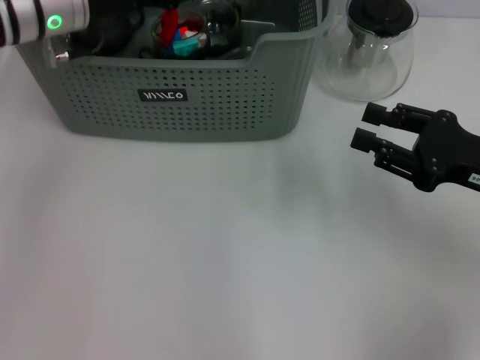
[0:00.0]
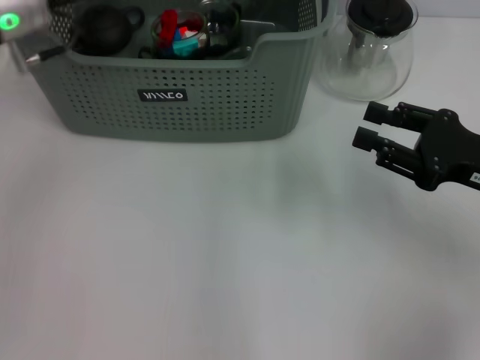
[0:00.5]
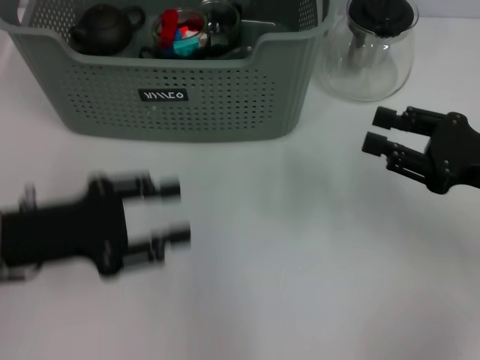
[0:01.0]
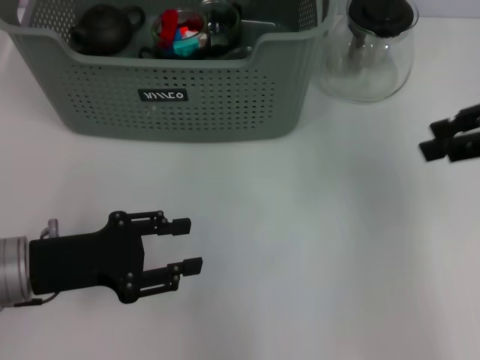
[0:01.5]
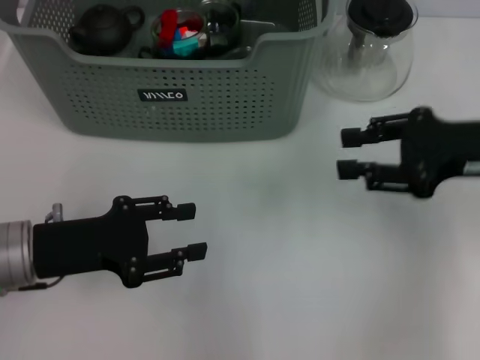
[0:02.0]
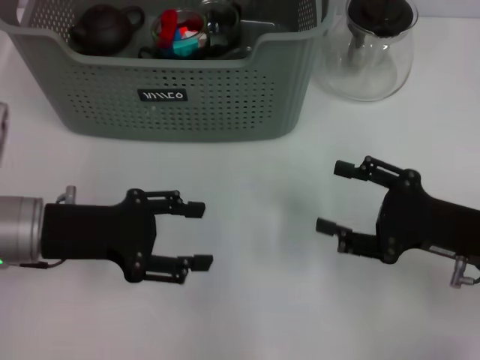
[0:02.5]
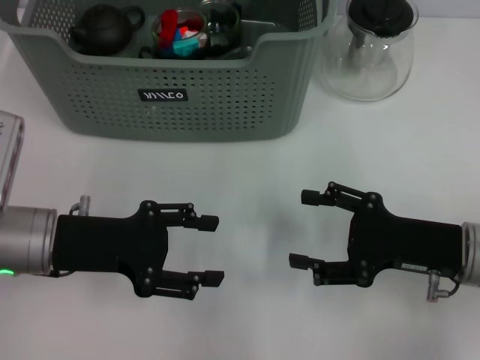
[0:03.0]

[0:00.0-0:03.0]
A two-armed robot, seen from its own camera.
Task of the whole recording: pick up the teacup on the table and place it into the storage bin, pick up the block on the table and place it into the storage bin.
0:00.0 to 0:01.5: The right gripper goes some 15 cm upward. The left gripper moves backward and downward, some 25 cm.
0:01.5 to 0:03.0: The right gripper shifts some 20 cm downward and backward, and opens its fingers.

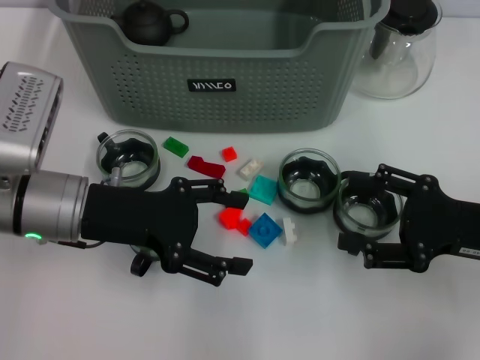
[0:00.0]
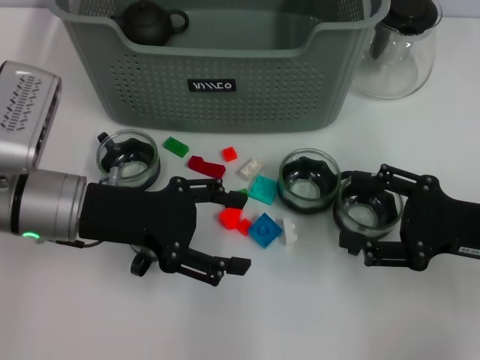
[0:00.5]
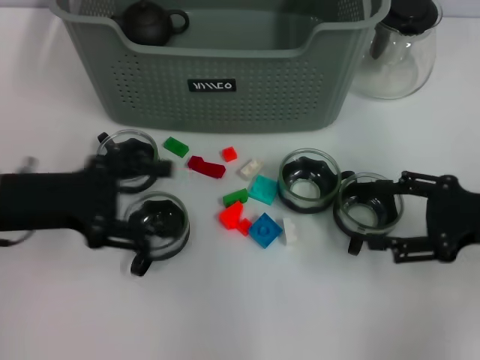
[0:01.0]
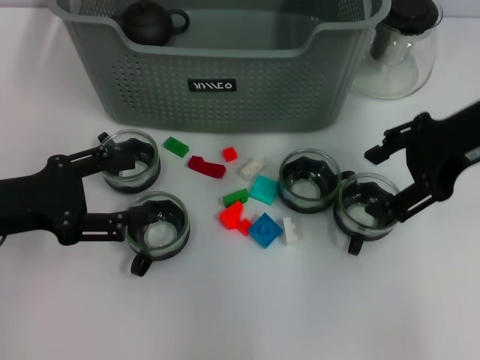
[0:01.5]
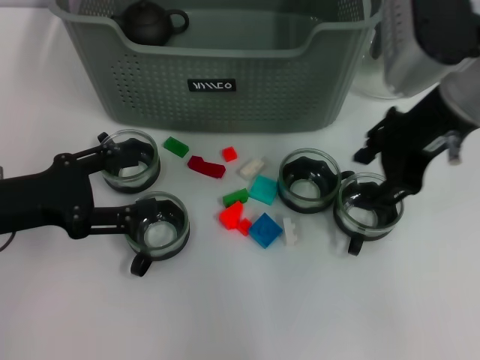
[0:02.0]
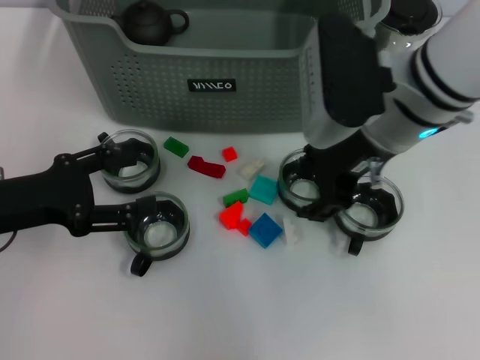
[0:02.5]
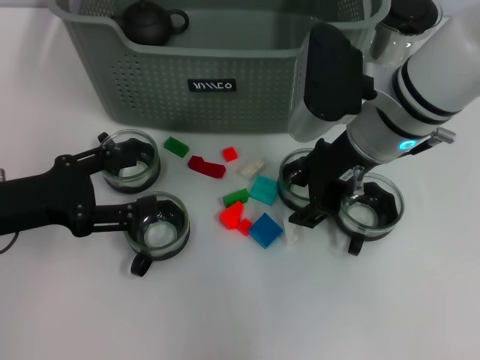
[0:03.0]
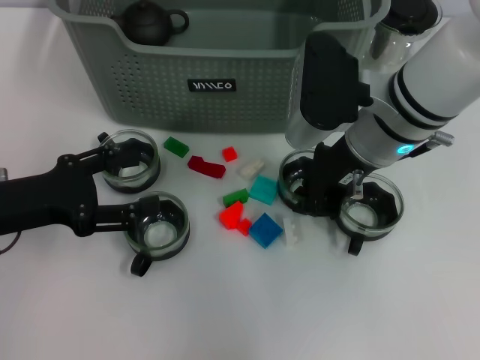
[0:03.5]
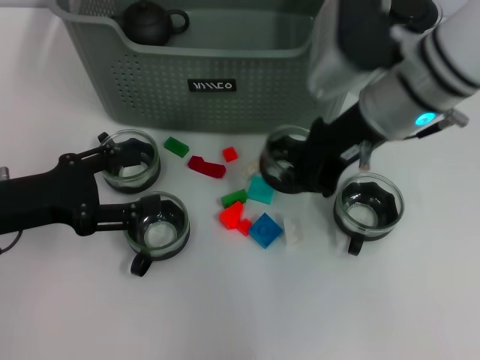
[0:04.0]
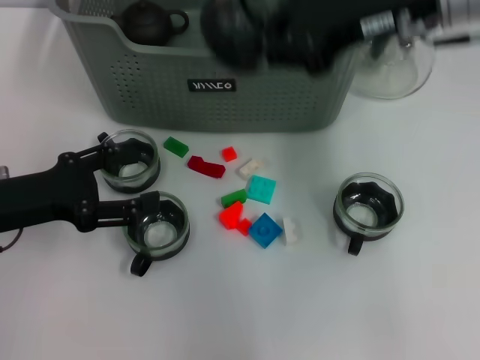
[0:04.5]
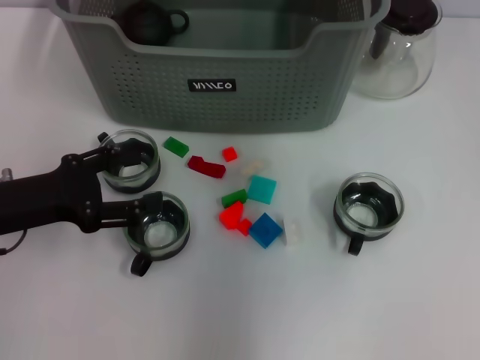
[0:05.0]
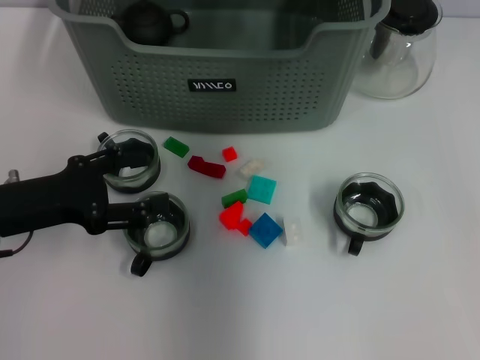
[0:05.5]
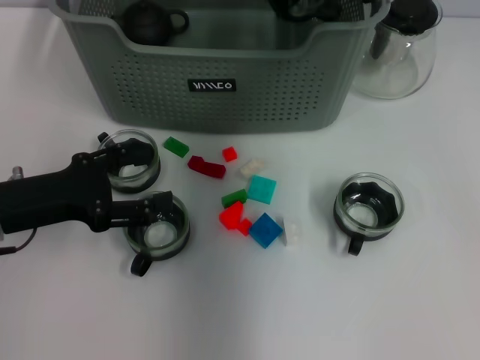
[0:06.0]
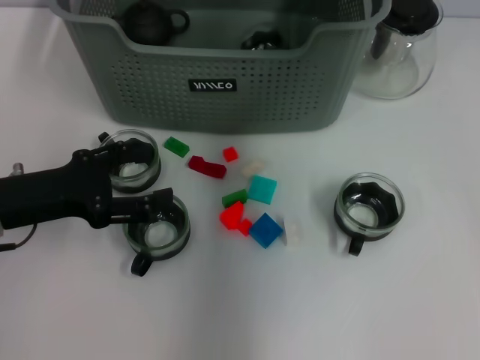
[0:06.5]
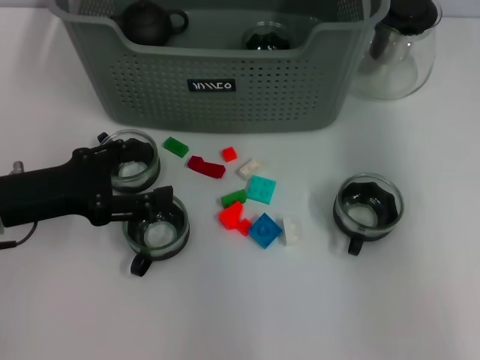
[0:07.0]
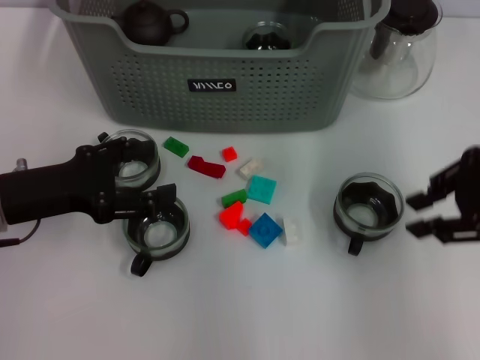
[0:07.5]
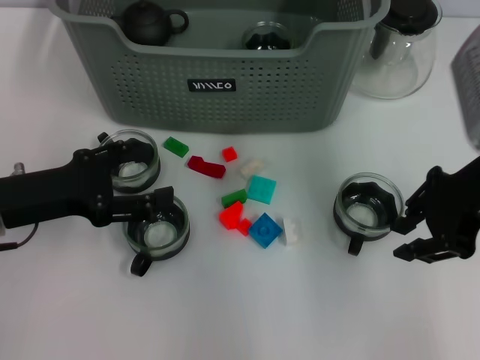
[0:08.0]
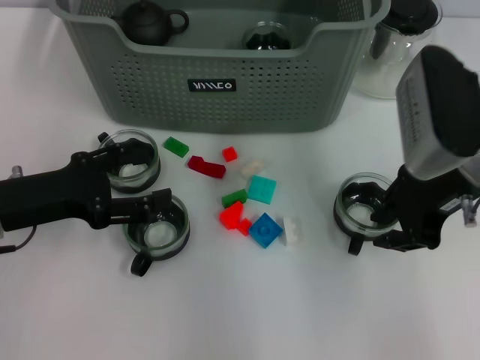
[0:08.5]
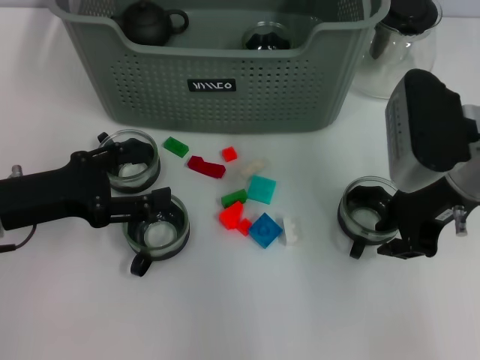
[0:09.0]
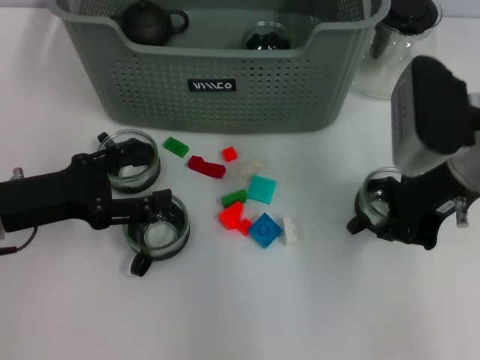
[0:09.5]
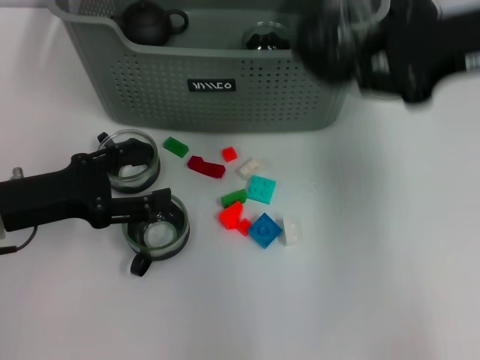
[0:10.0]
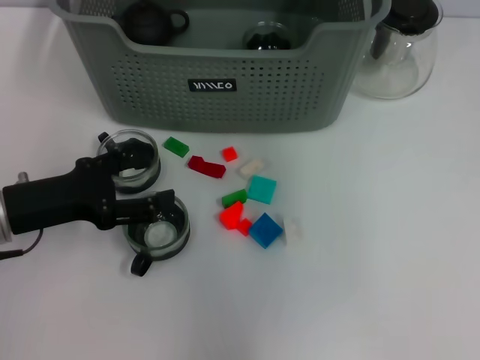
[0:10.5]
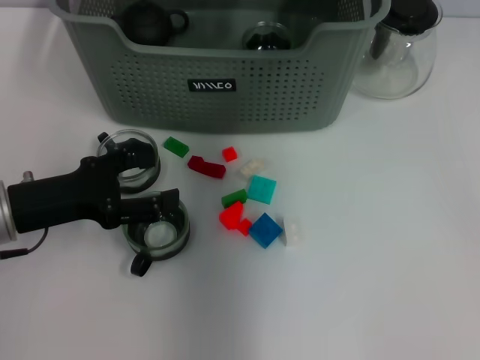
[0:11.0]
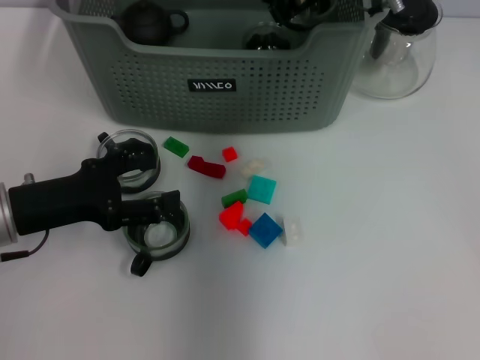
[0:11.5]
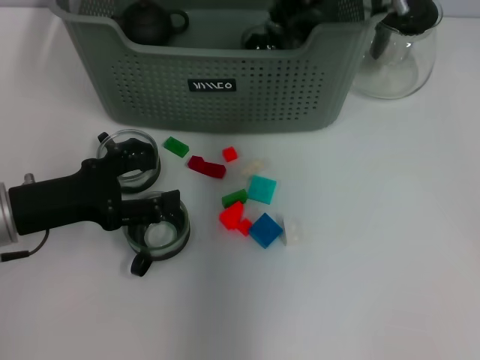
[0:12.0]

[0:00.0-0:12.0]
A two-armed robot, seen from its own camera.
Task of the whole recording: pick up the teacup on the table and place it into the storage bin, pick up the block on the table and place it into the storage bin.
Step, 0:00.0 to 0:03.5: Grasp the cup with right gripper.
Step, 0:04.0 to 0:06.5: Place the cup in the storage box with right gripper.
Step, 0:07.0 to 0:09.0: Grasp the cup with right gripper.
0:00.0 to 0:02.0: The left gripper goes about 10 cm to the left; the right gripper shifts approximately 20 cm upward, to the left and forward.
0:02.0 to 0:04.0: The right gripper ends up some 5 cm from where it was, and closes up.
0:04.0 to 0:06.0: The right gripper goes approximately 10 cm forward, and reaches about 10 cm upward, then returns.
0:06.0 to 0:08.0: The right gripper heads backward and to the right, covering some 20 cm.
0:08.0 to 0:10.0: The right gripper shifts some 5 cm upward, and closes.
0:10.0 to 0:12.0: The right gripper travels forward and to the left by some 20 cm.

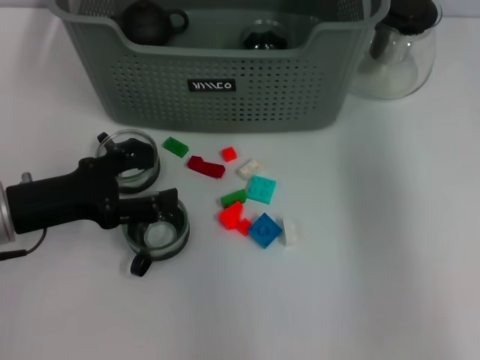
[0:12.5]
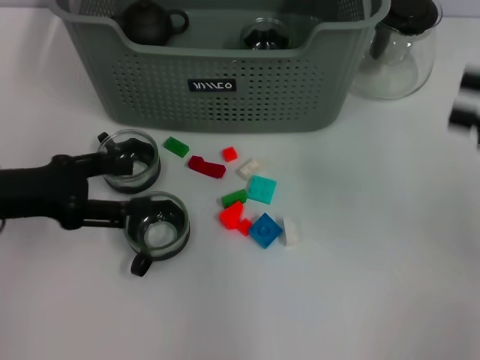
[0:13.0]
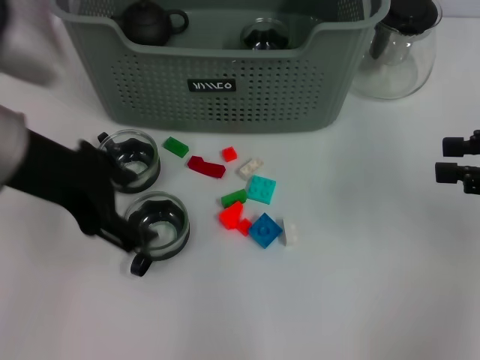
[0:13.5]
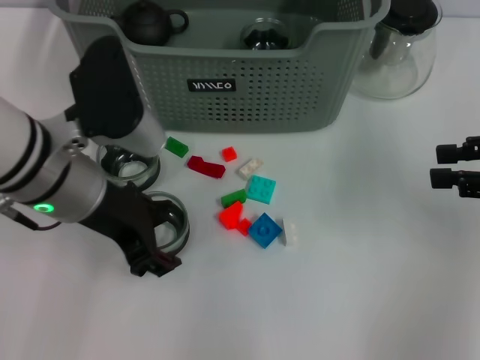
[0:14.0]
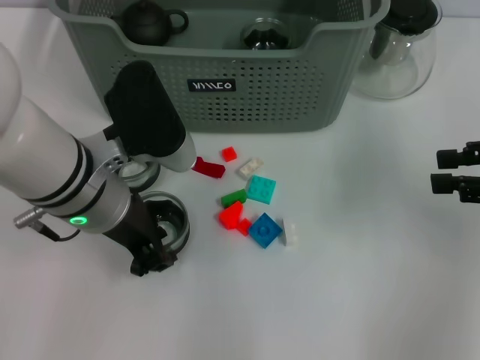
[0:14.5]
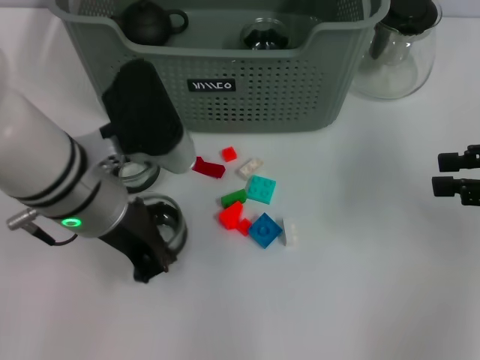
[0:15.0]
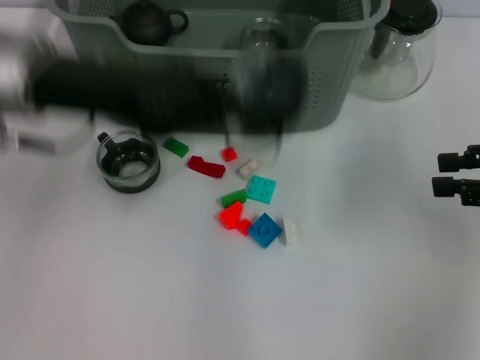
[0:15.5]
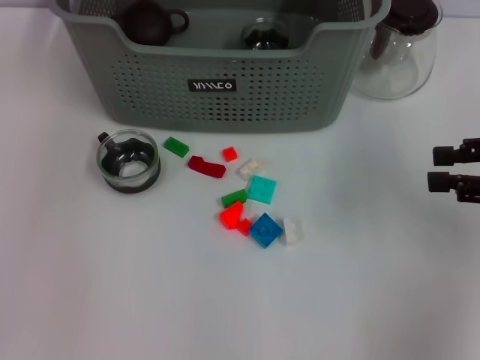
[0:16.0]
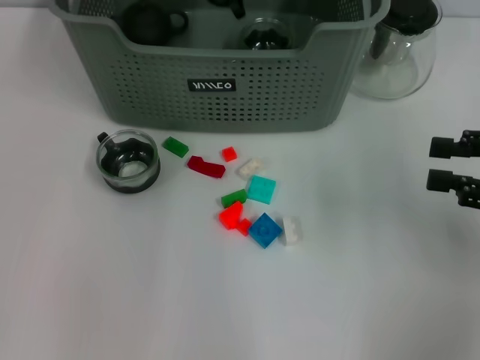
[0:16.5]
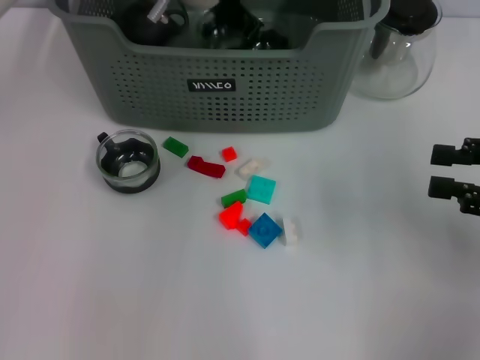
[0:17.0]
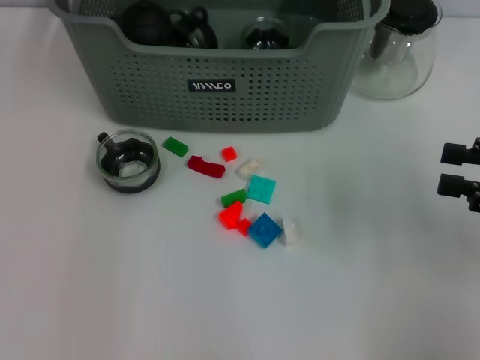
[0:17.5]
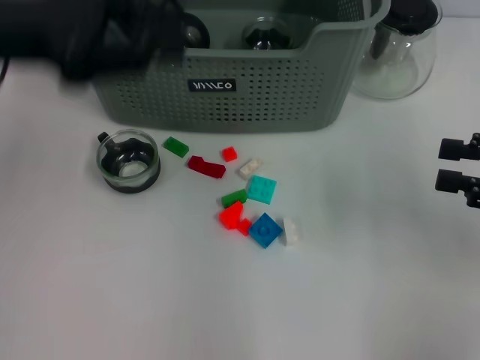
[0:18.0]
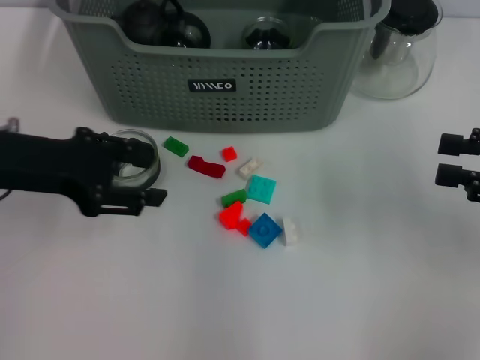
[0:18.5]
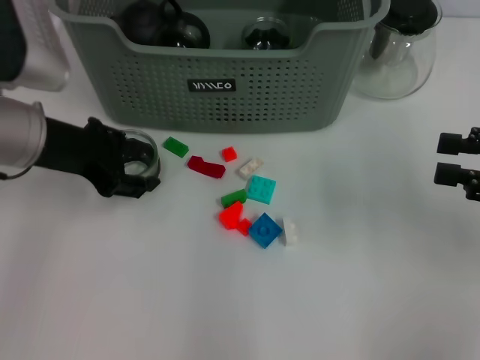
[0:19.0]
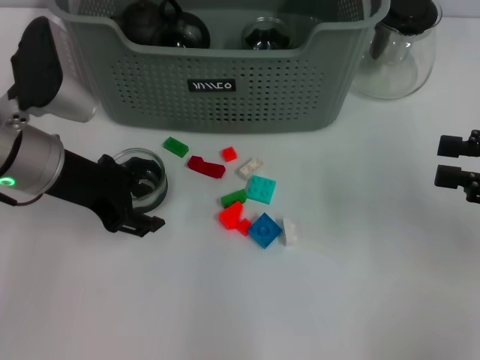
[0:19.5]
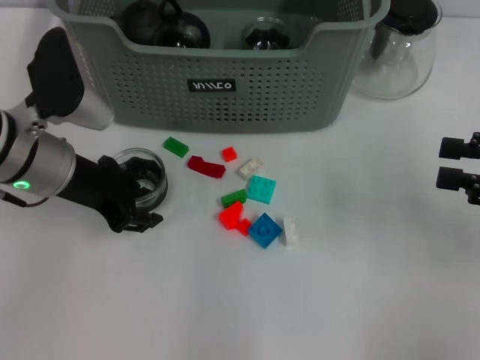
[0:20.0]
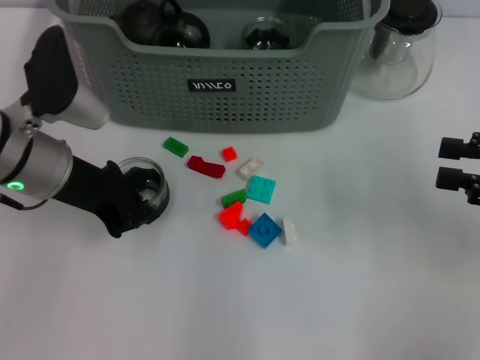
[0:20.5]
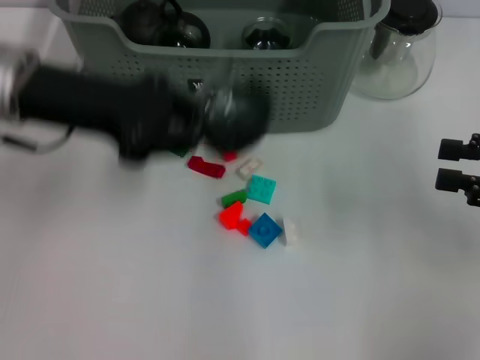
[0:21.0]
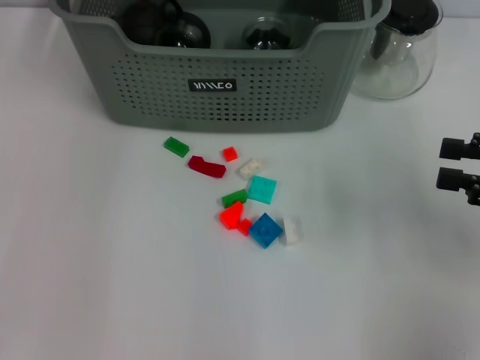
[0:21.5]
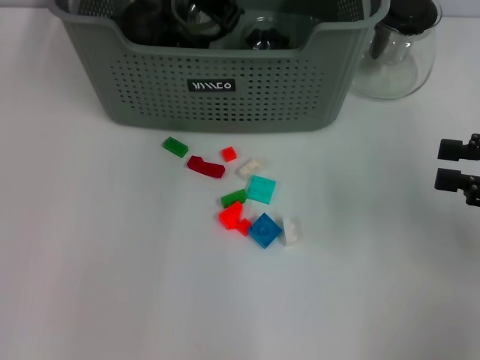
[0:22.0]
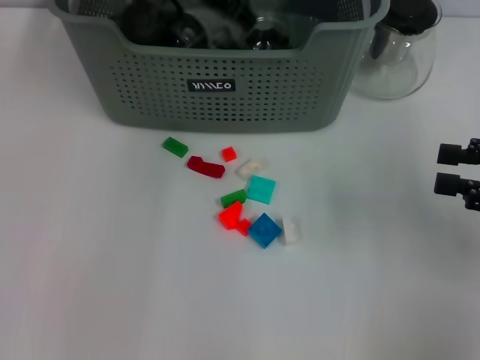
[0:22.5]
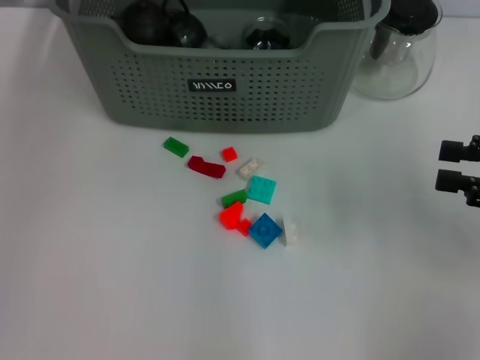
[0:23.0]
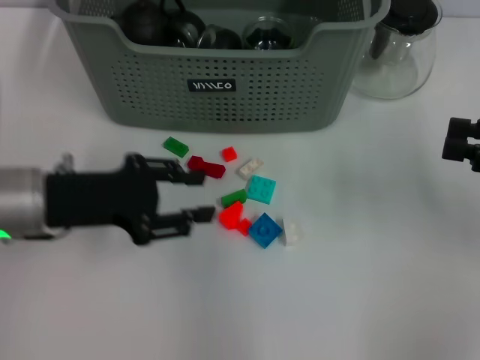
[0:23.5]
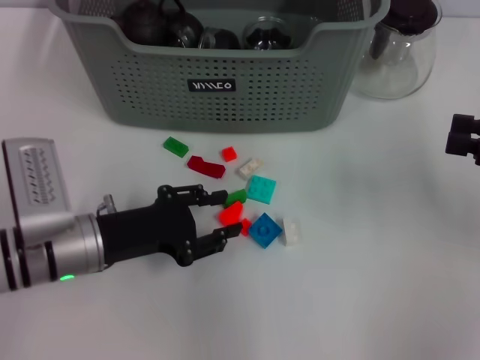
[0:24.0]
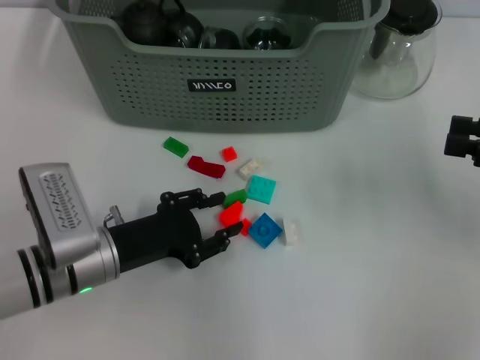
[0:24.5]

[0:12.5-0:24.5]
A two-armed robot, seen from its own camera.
Task of the whole recording: pick up the teacup on the table and place it into the storage bin, pick up the block on the table and place it into the storage bin.
Step, 0:13.5 to 0:14.5: Grasp the cup with left gripper.
Step, 0:15.5 to 0:17.5: Place the cup in the storage box with left gripper.
Step, 0:18.0 to 0:20.5: Grasp the cup with left gripper.
Step, 0:21.0 to 0:23.5: Place the cup in the storage box with left gripper.
0:12.5 to 0:14.5: The left gripper moves to the right and upward, roughly 15 cm, and closes its fingers. Meanwhile the right gripper heads to the right, downward and backward, covering some 20 cm.
0:14.5 to 0:16.5: The left gripper heads forward and upward, covering some 20 cm, and closes up.
0:16.5 to 0:18.5: The left gripper shifts about 25 cm backward, to the left and downward, and opens its fingers.
0:18.5 to 0:20.5: The left gripper heads to the right, covering roughly 5 cm, and closes its fingers.
0:20.5 to 0:22.5: The left gripper heads forward, to the right and upward, covering about 20 cm.
0:22.5 to 0:24.5: The left gripper travels downward, backward and to the left by about 35 cm.
